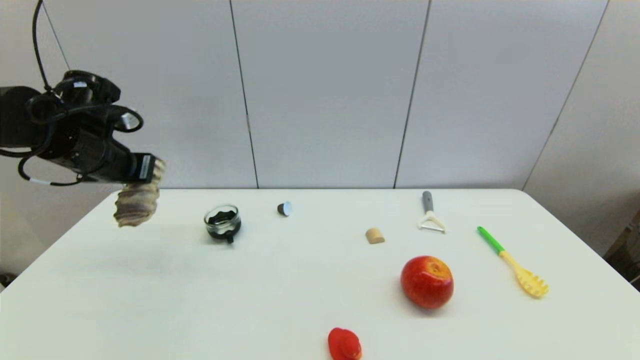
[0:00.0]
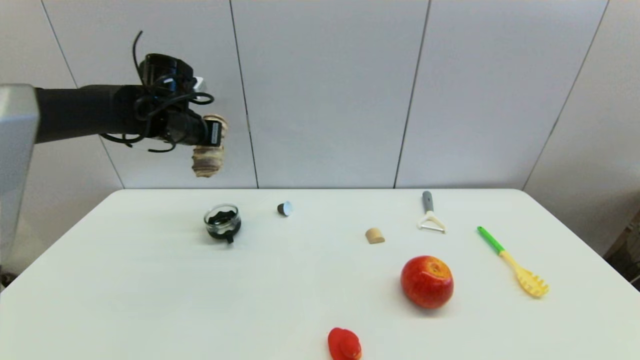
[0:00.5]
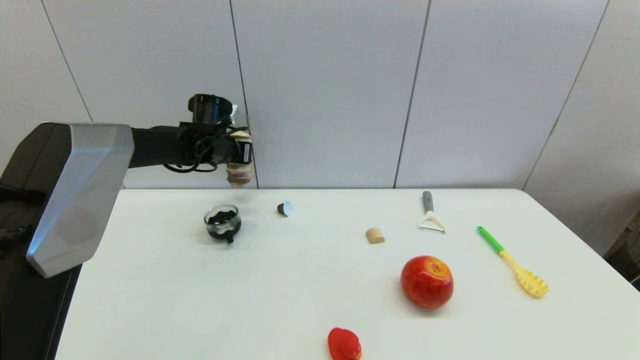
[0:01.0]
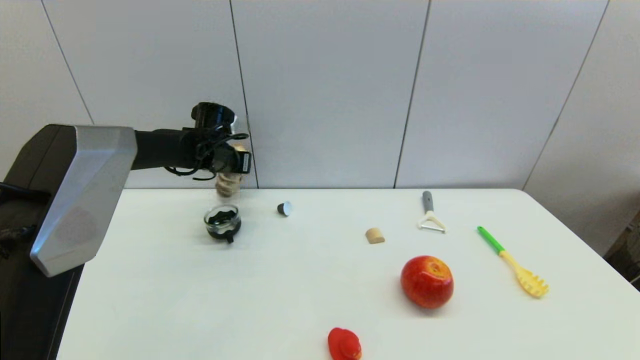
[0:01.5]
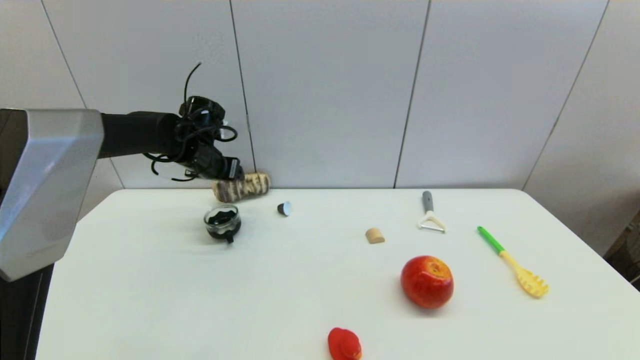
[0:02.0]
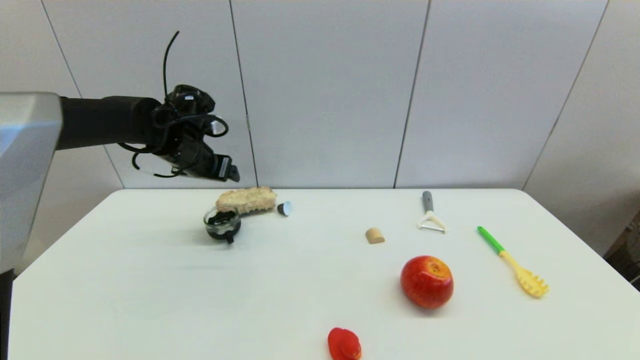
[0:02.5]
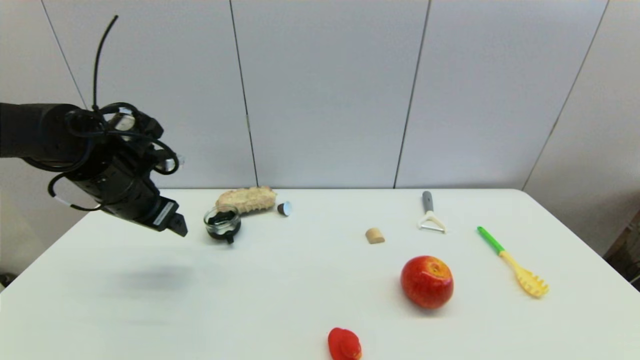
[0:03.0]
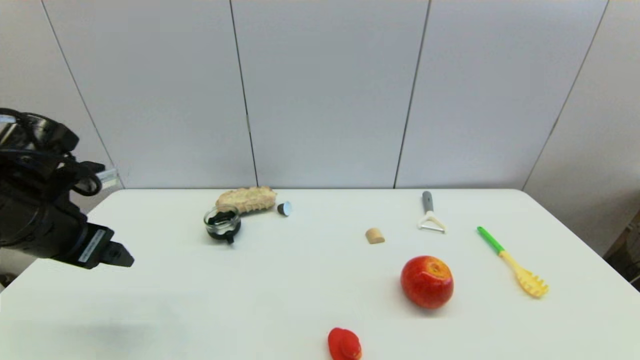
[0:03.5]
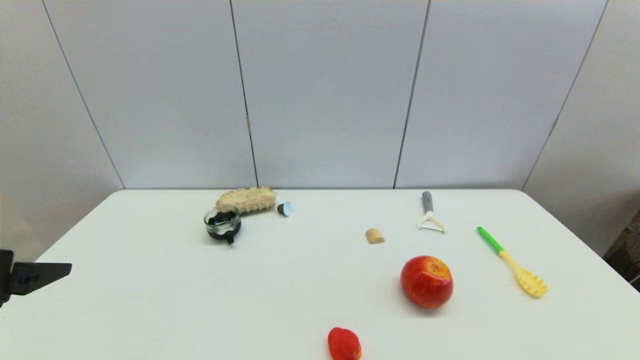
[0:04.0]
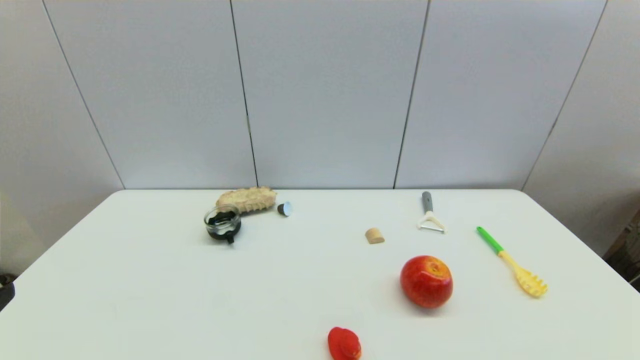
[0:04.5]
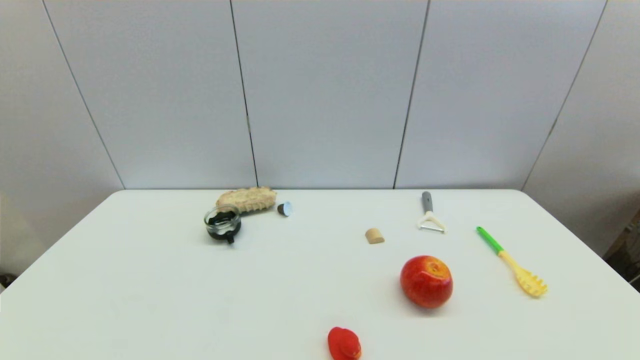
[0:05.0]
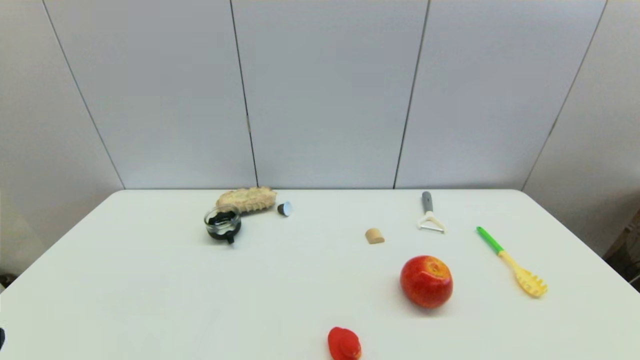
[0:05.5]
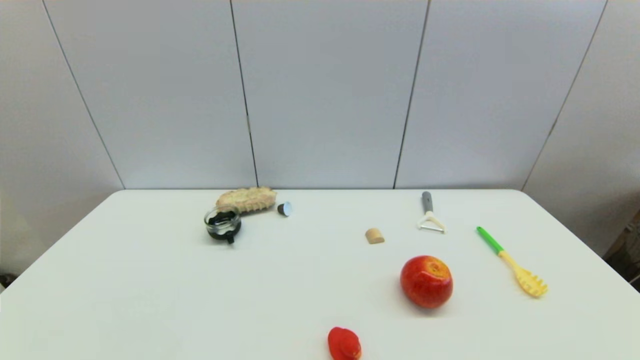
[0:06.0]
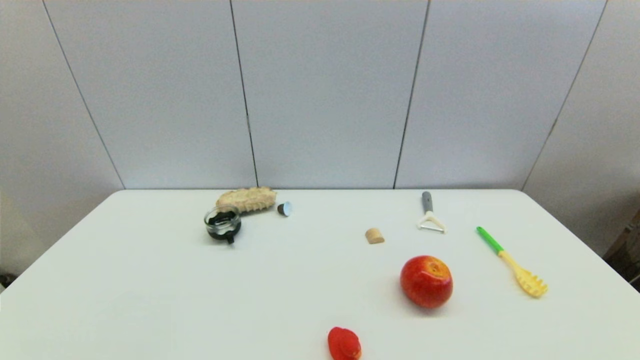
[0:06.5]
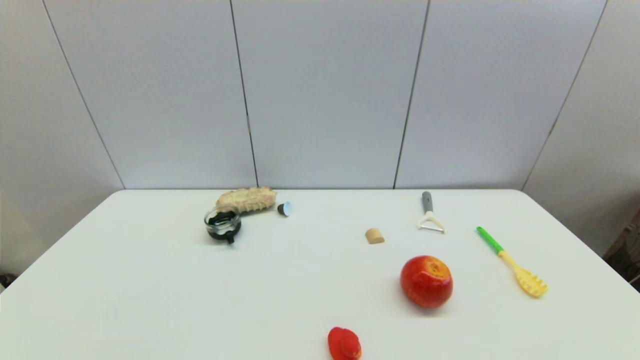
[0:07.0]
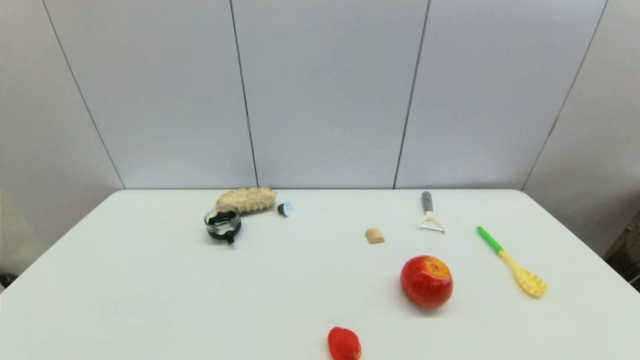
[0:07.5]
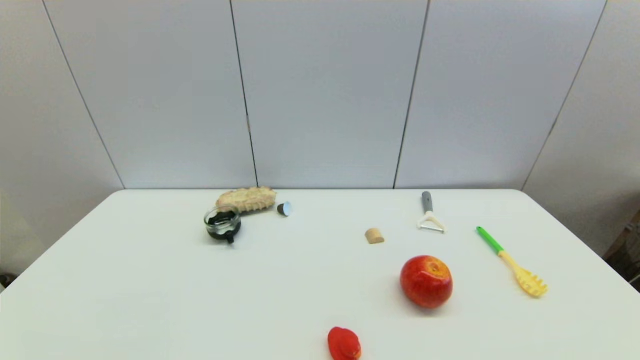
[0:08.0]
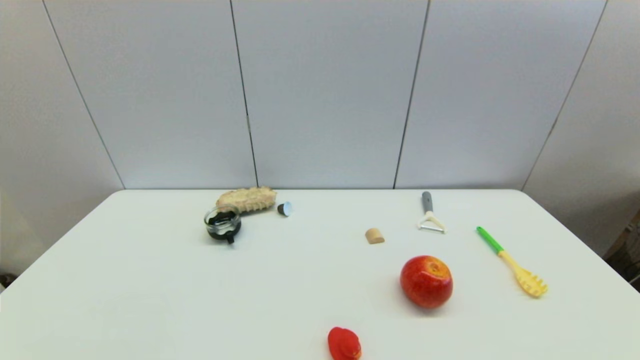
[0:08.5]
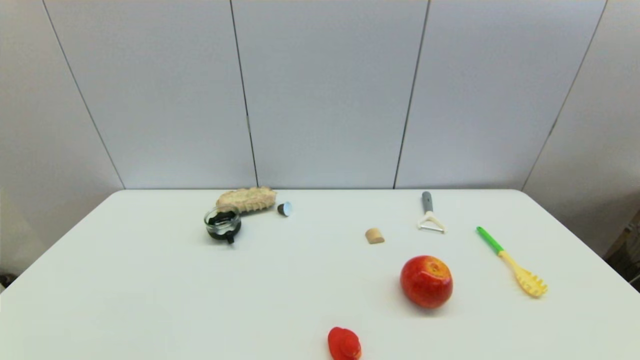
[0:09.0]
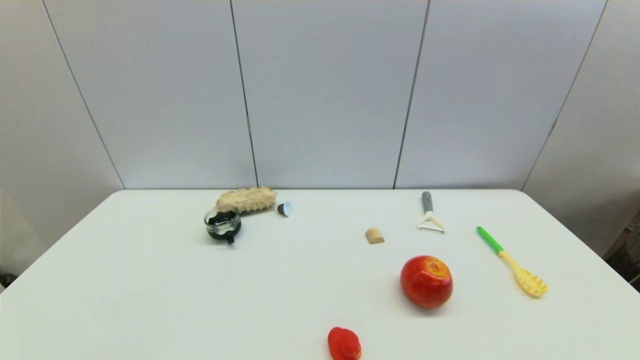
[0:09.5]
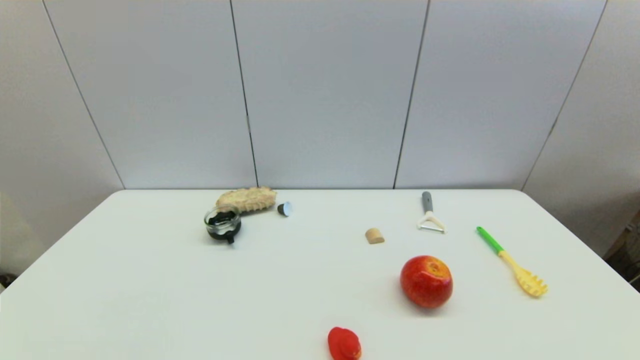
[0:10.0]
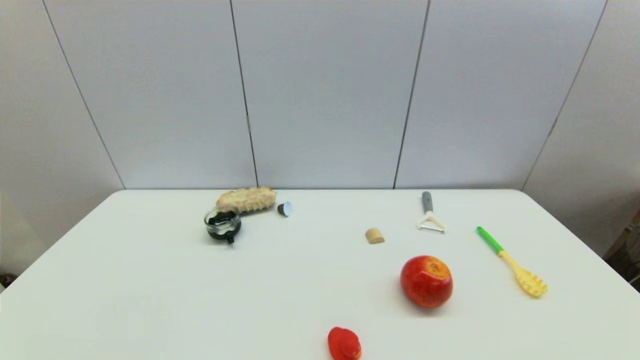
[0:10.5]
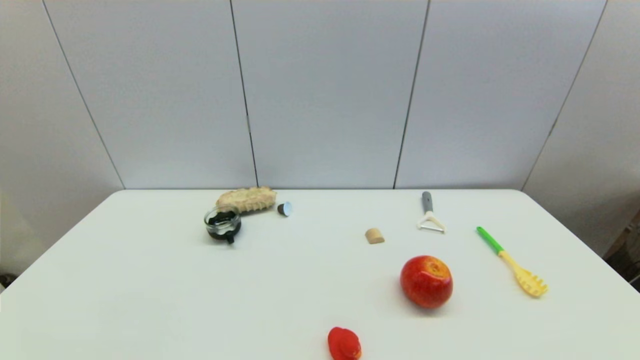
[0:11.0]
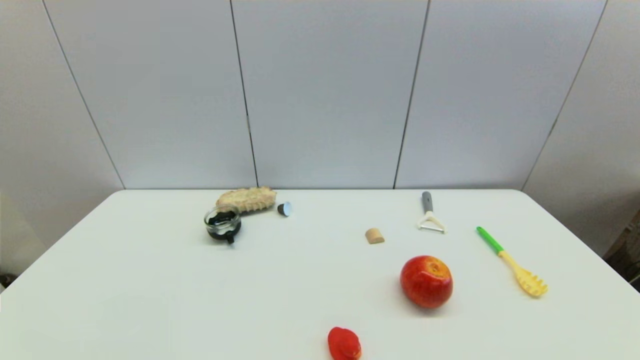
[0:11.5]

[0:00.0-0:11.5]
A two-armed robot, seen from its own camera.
Step, 0:00.0 to 0:02.0: Place the long bread on the table with left gripper.
0:00.0 to 0:02.0: The left gripper travels forward, to the right and downward by some 15 cm, and opens its fingers.
0:02.0 to 0:04.0: The left gripper travels backward by approximately 35 cm.
0:04.0 to 0:06.0: The left gripper travels downward and backward by about 20 cm.
0:07.5 to 0:11.5: Both grippers stay put.
